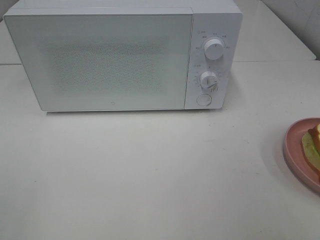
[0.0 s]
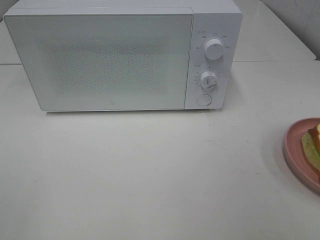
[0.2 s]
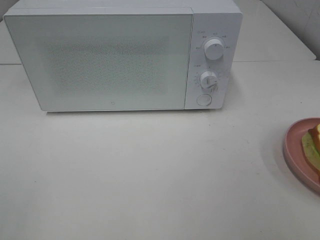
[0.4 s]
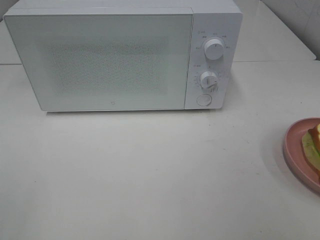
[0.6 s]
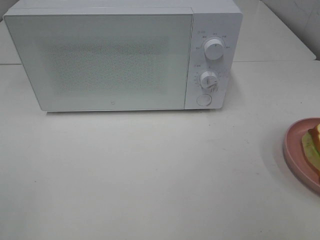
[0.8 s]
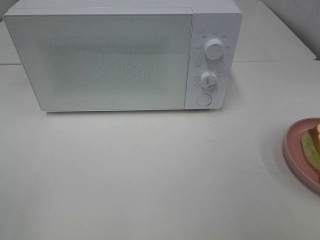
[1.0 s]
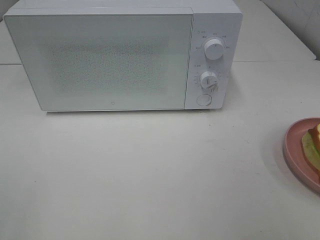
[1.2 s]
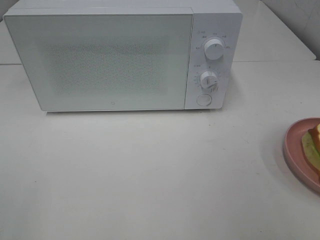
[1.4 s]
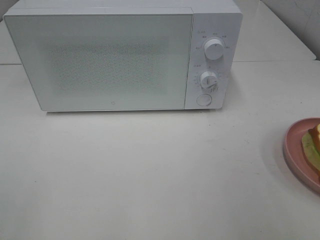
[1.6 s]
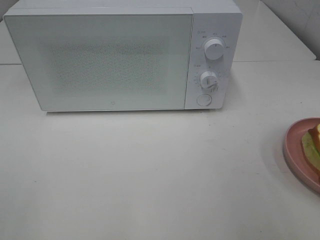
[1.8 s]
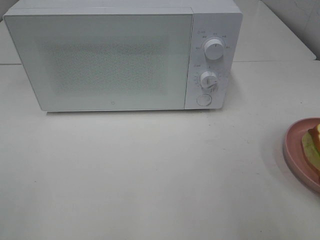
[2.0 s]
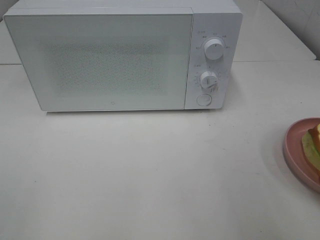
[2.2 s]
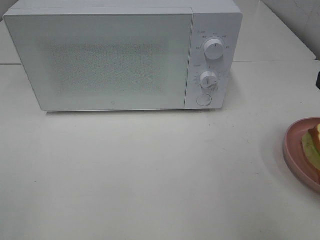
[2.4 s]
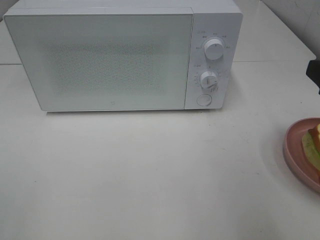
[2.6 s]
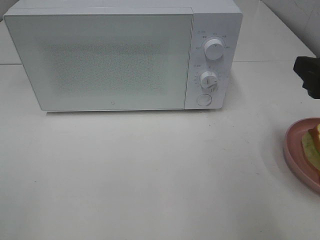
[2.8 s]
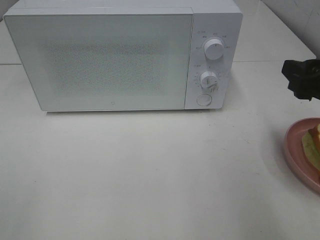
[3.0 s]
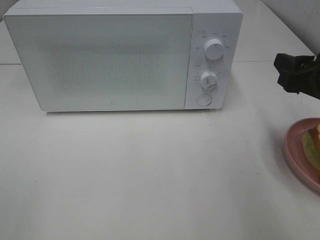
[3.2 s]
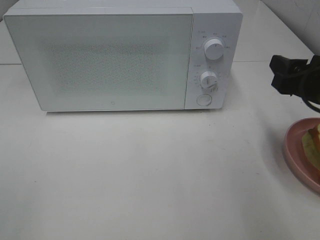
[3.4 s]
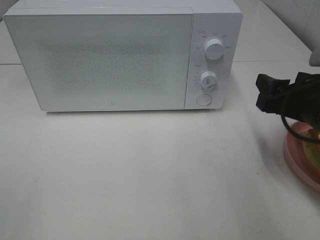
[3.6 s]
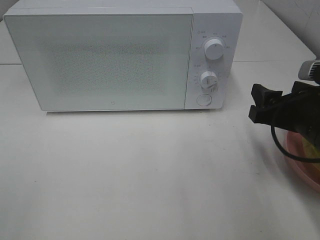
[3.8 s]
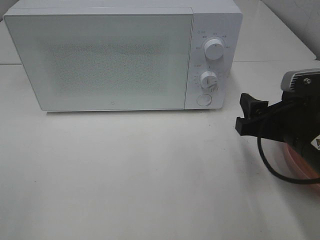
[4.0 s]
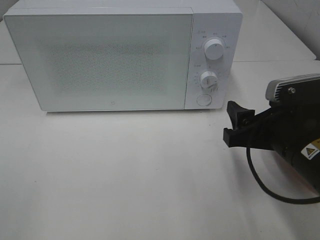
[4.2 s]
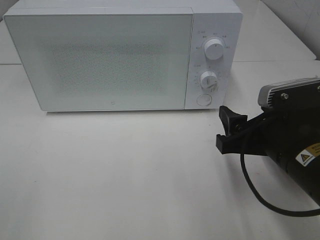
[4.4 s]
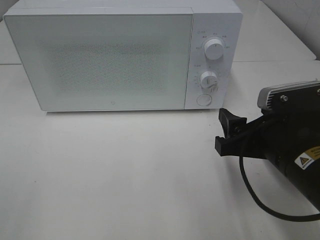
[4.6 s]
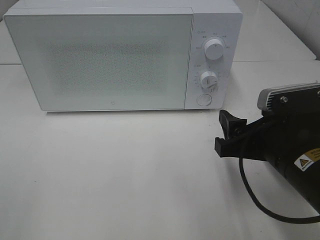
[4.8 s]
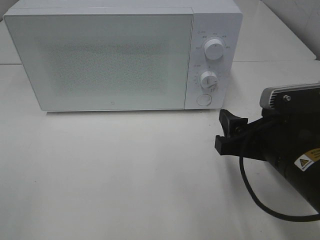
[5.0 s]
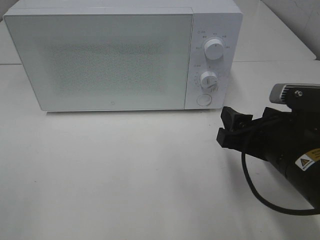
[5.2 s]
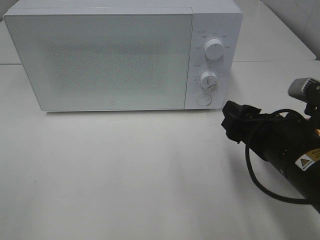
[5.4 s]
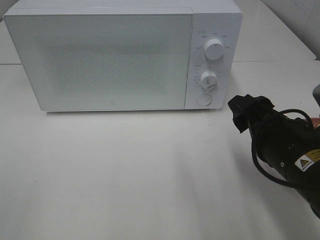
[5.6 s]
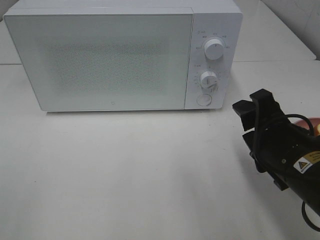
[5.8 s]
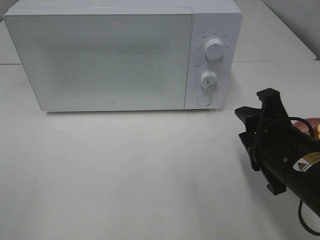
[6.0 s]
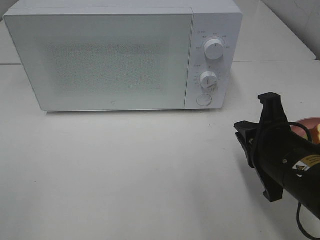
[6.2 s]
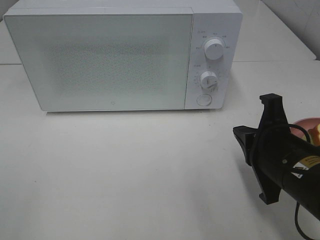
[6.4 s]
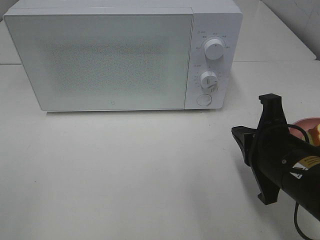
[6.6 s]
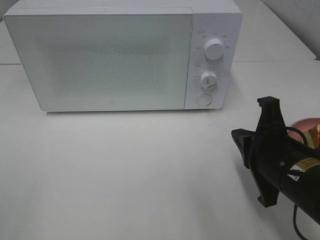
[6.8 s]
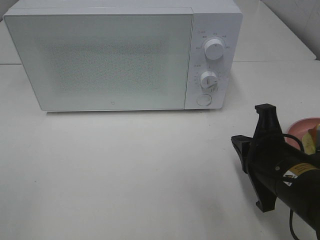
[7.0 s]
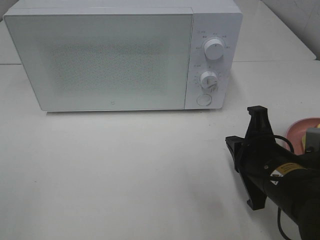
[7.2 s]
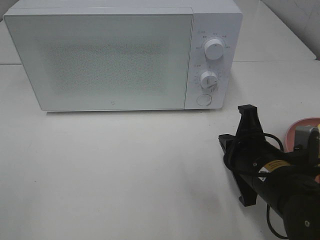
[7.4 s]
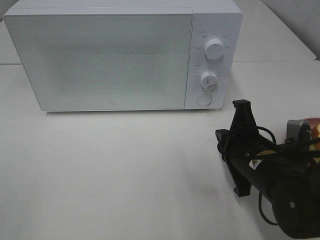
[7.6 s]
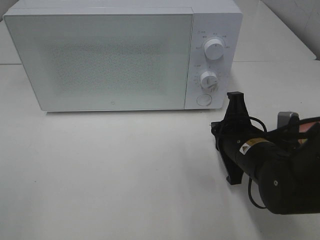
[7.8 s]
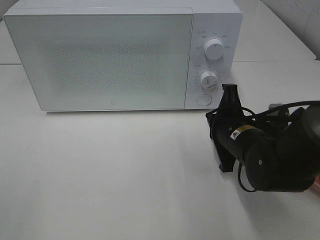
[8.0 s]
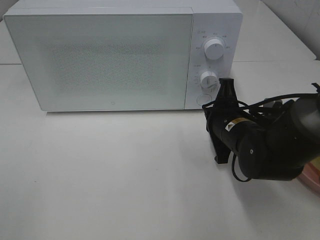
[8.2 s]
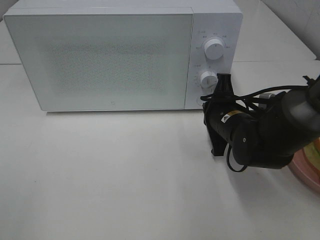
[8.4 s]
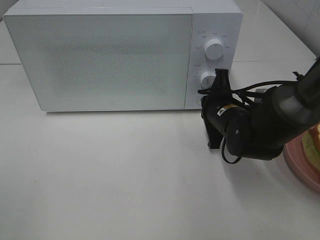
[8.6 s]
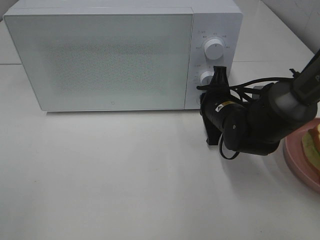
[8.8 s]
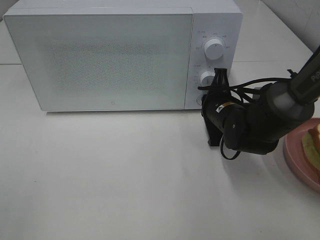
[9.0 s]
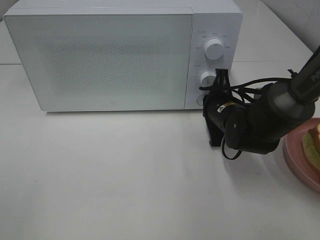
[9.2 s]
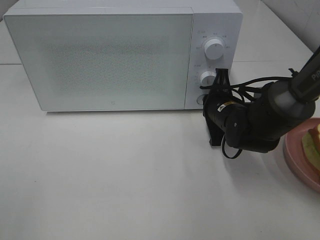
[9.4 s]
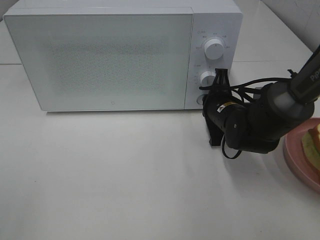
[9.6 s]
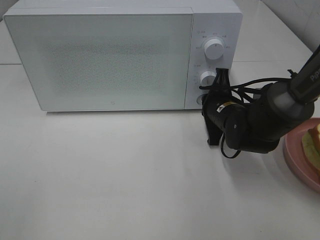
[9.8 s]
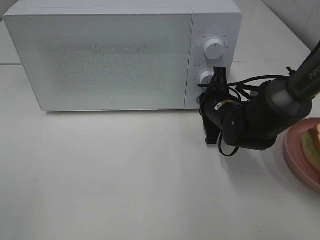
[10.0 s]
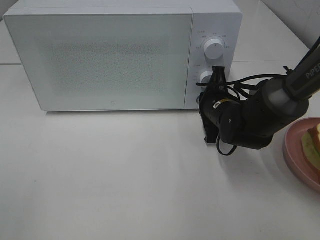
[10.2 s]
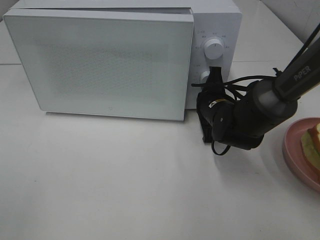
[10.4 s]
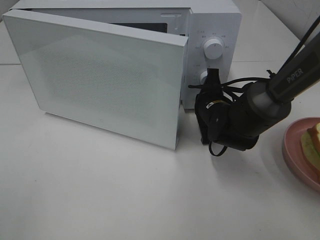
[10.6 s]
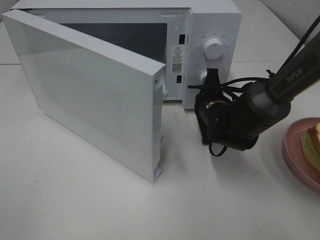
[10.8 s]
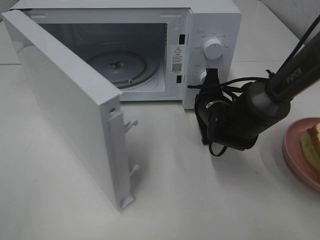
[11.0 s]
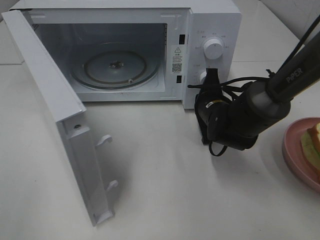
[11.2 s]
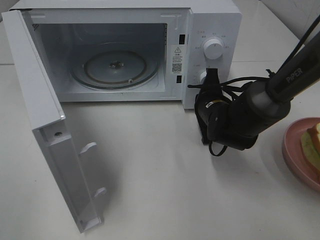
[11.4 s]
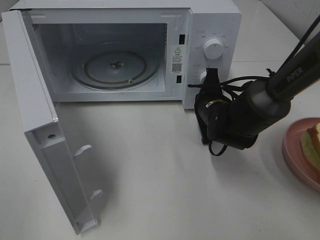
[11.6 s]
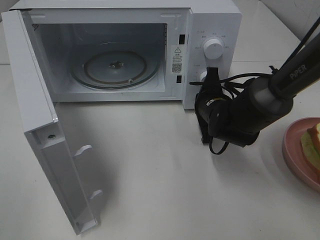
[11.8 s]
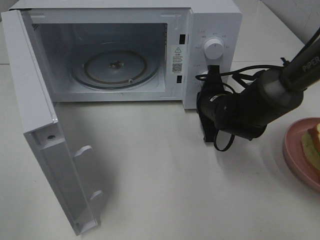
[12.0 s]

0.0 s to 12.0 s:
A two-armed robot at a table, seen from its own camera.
Task of the whole recording: Heat Sandwich.
1.6 to 3.0 s: The right gripper goes approximately 15 cm forward and downward.
3.0 to 4.4 s: The right gripper moves to the left and downward, approximately 10 cm.
6.0 to 7.6 s: The right gripper shifts by roughly 5 cm, and closes up.
7.6 to 9.0 s: The right gripper goes approximately 10 cm forward.
9.0 to 10.4 s: The grippers make only small movements.

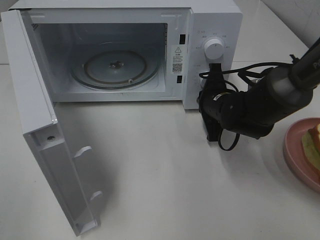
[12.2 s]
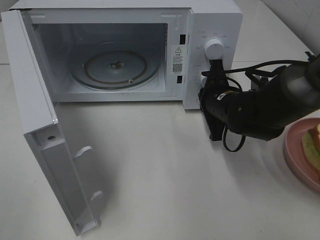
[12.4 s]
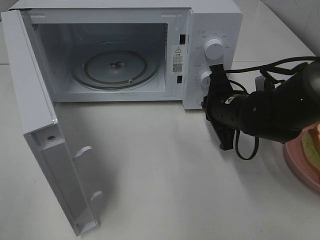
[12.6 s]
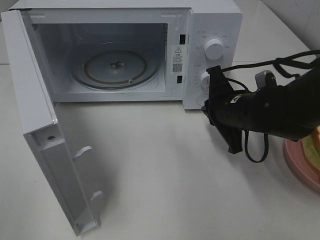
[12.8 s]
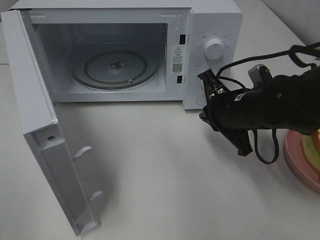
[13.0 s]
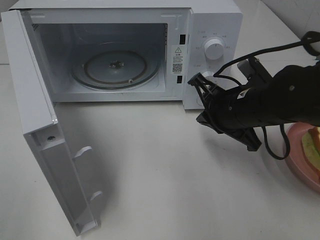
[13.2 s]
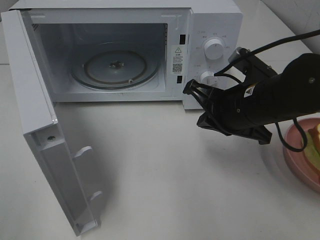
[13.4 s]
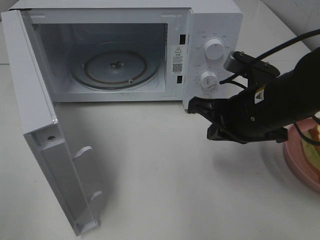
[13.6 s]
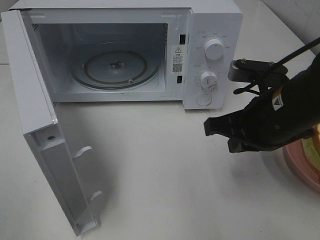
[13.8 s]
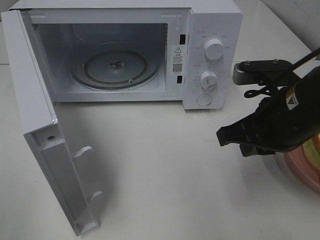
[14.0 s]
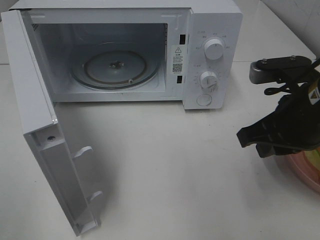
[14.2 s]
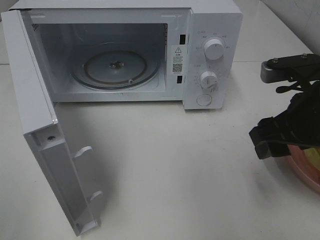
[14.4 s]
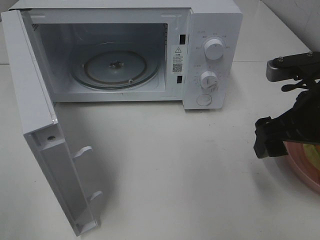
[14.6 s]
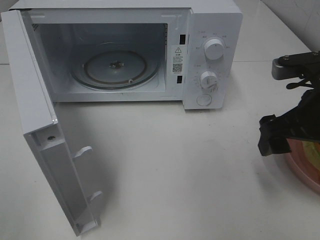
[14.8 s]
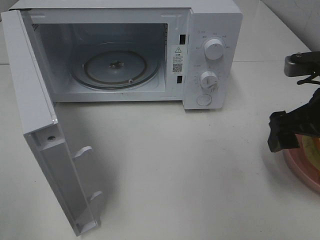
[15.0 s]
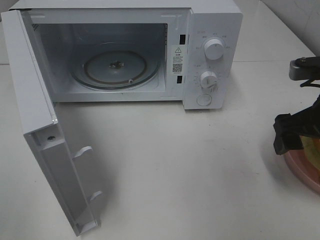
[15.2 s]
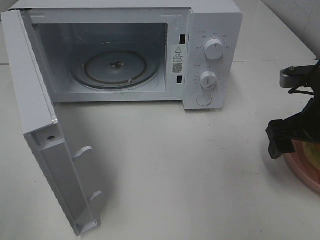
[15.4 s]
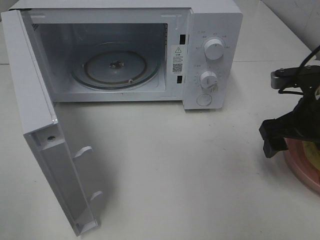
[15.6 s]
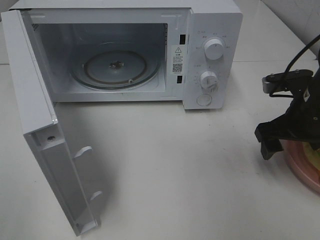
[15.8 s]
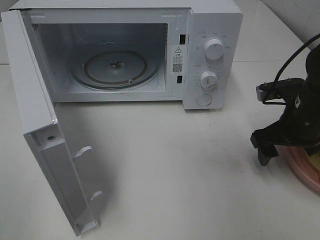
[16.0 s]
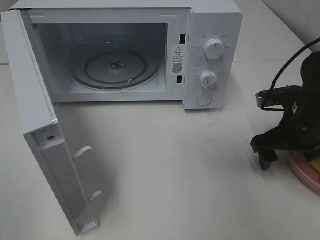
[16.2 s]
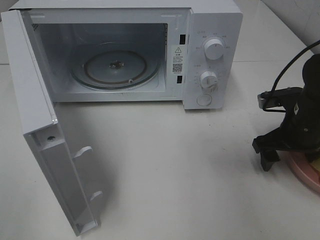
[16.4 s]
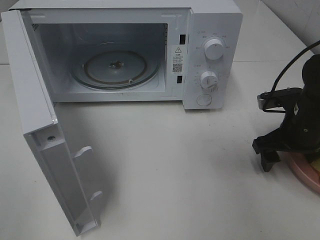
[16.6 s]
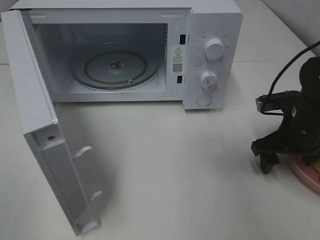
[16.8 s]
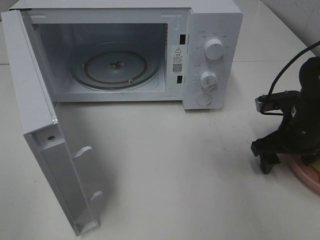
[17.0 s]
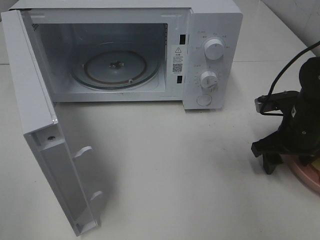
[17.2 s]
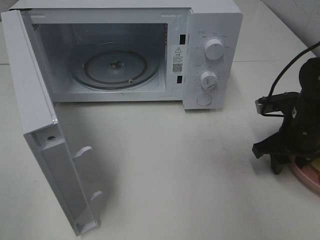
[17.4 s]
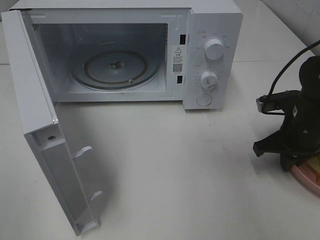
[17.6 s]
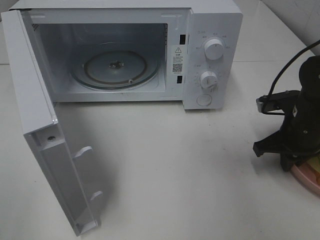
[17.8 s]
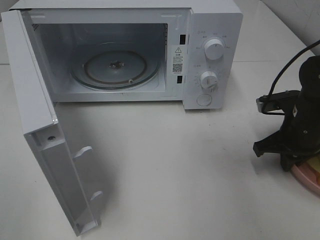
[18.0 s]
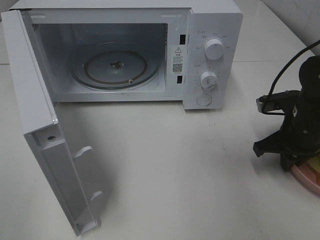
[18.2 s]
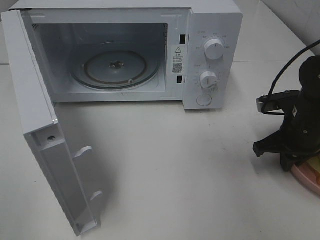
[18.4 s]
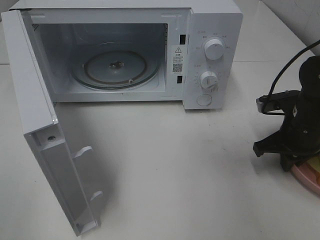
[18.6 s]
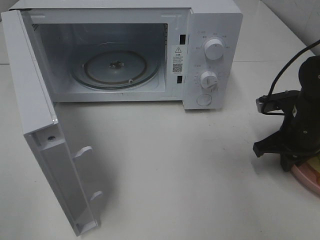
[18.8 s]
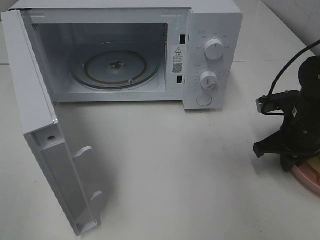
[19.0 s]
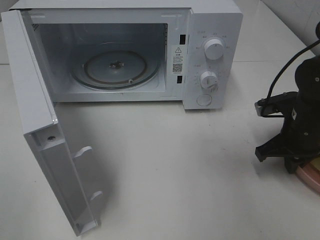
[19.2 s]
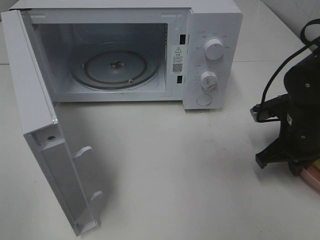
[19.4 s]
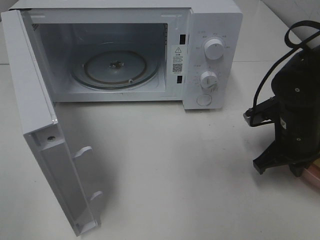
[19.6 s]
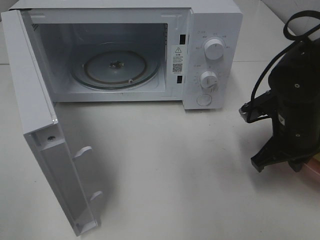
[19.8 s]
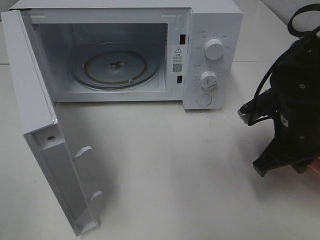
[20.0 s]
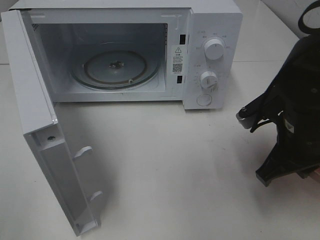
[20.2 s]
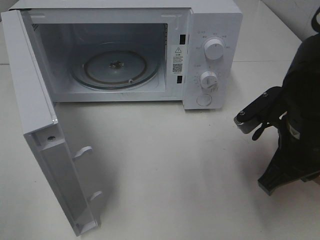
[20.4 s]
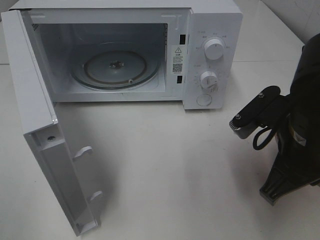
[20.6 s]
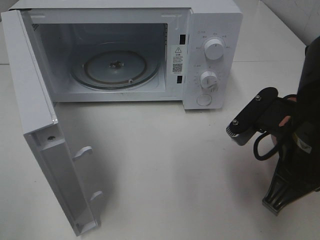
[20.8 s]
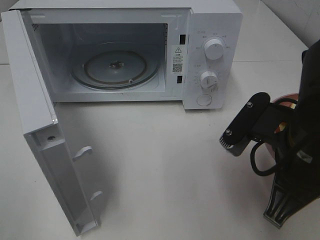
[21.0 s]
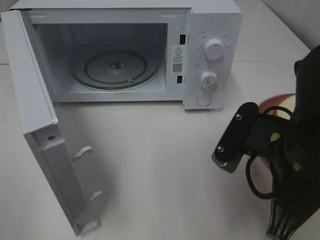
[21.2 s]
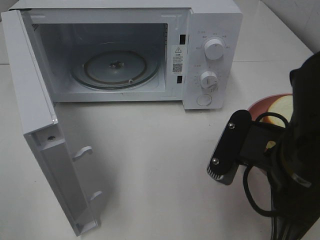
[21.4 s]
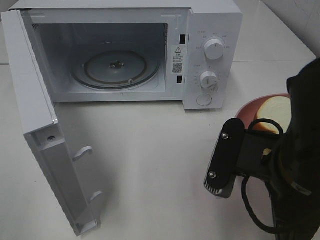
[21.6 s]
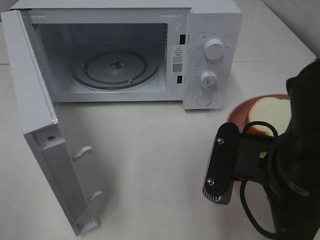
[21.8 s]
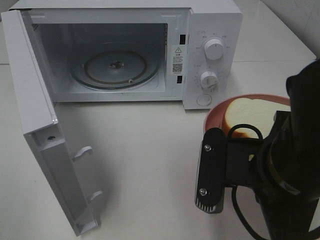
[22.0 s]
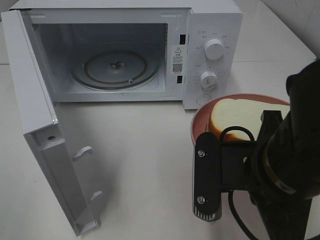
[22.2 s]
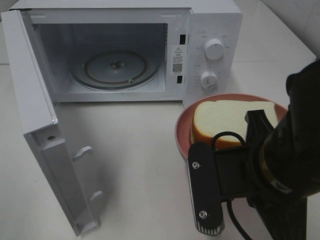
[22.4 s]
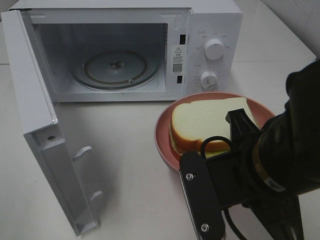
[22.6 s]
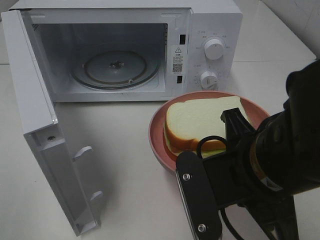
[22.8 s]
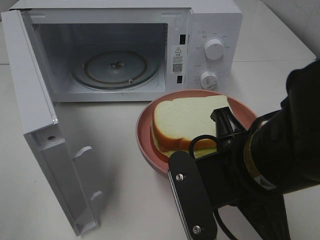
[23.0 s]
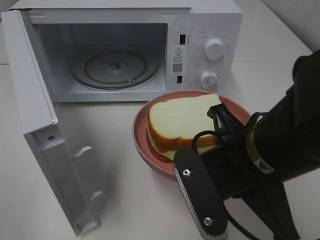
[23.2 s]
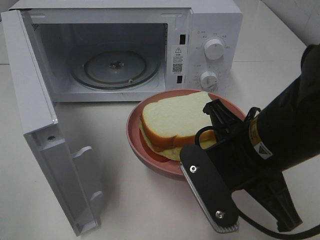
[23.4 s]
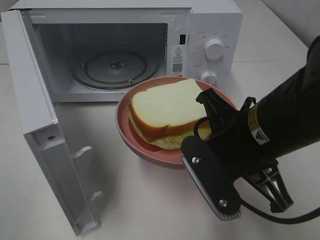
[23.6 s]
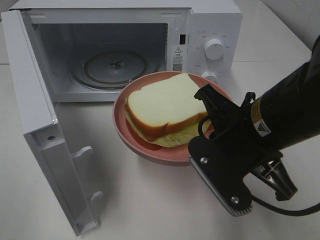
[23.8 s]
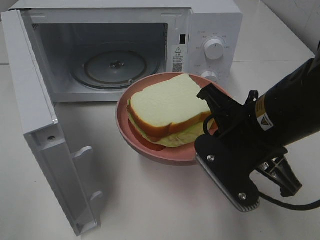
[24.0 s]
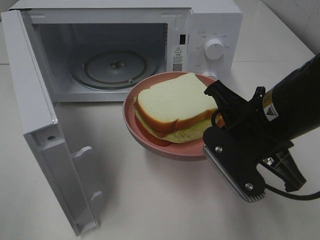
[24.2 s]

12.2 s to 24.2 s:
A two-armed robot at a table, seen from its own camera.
Task of the whole recording: Heat Sandwich.
Step, 12.8 to 18.8 s: Right hand: grab the plate with the sandwich.
12.2 to 13.8 s: The right gripper heads backward and upward, covering about 15 cm.
13.8 to 15.2 s: The right gripper moves to the right, roughly 10 cm, and opens its fingers.
15.2 to 16.6 s: The right gripper is displaced downward and forward by some 10 cm.
16.6 to 18.2 s: The right gripper closes its fingers.
18.2 to 19.8 s: The right gripper shifts by approximately 5 cm.
19.8 to 21.2 s: The right gripper heads backward, to the left and upward, covering some 15 cm.
22.6 to 24.2 s: The right gripper moves forward, about 5 cm.
